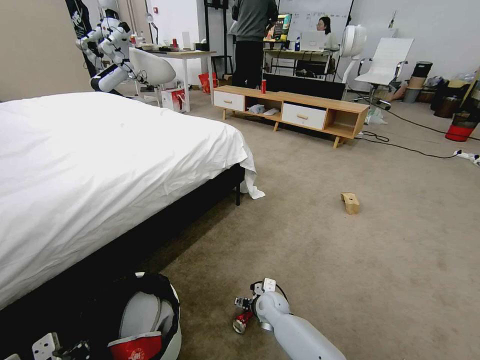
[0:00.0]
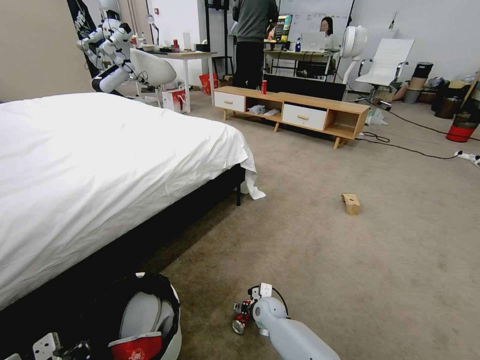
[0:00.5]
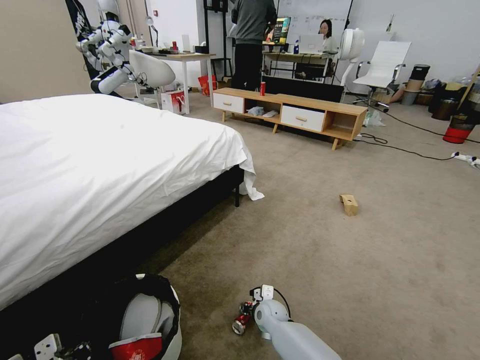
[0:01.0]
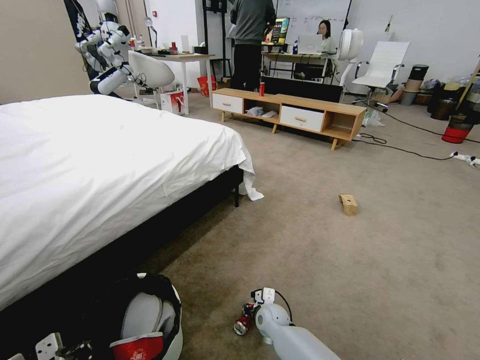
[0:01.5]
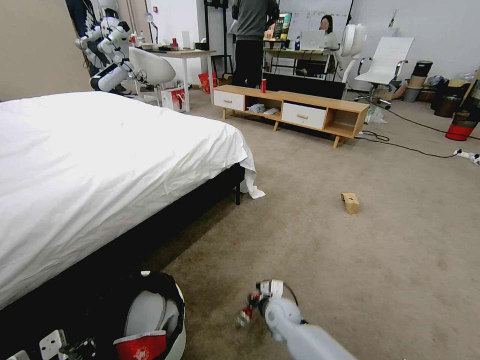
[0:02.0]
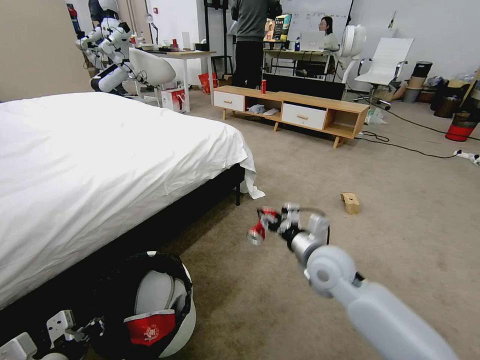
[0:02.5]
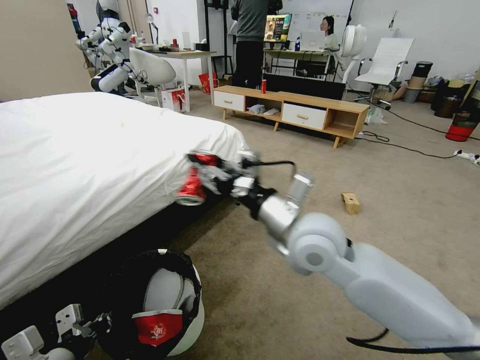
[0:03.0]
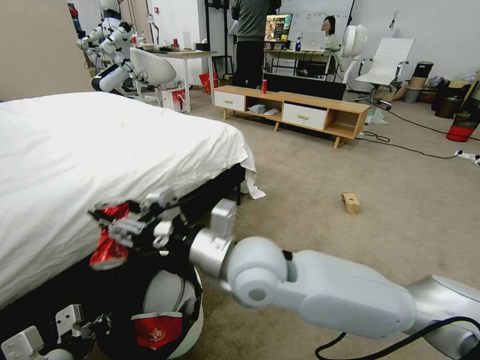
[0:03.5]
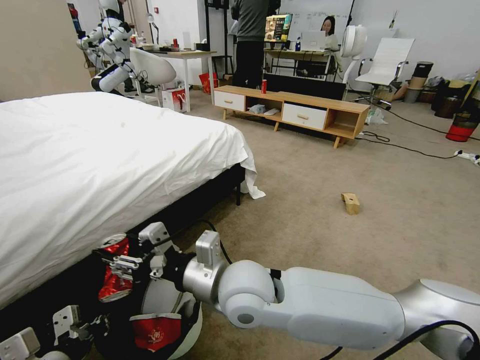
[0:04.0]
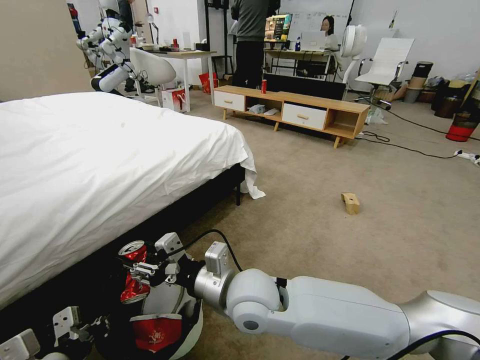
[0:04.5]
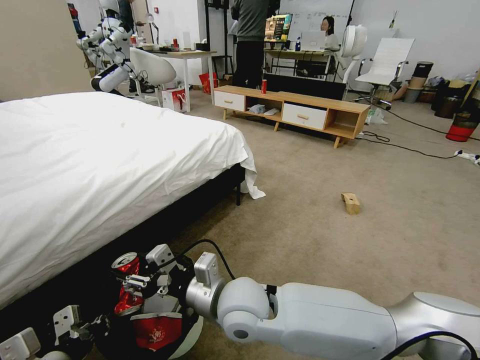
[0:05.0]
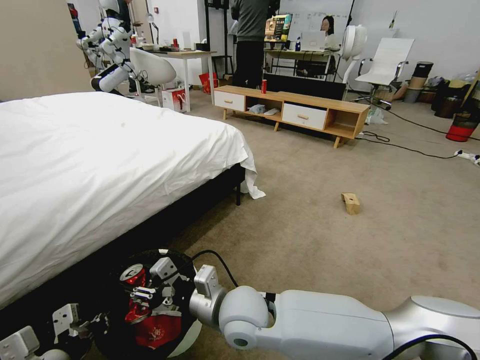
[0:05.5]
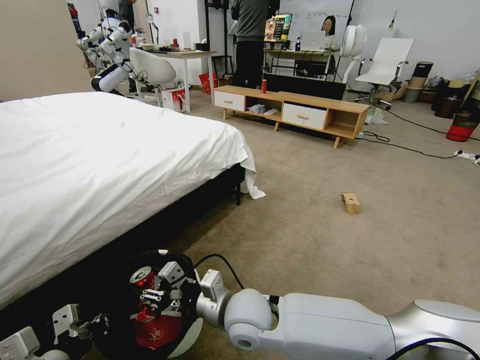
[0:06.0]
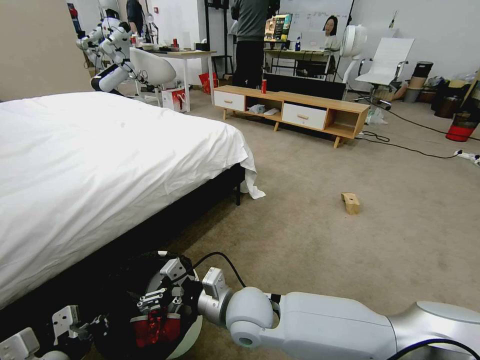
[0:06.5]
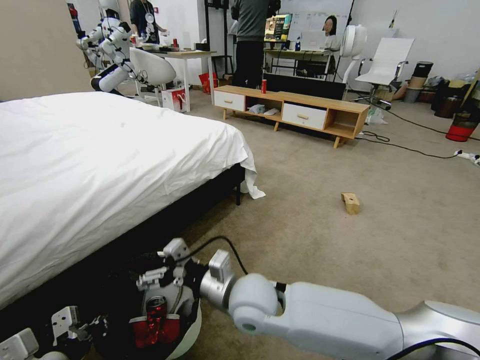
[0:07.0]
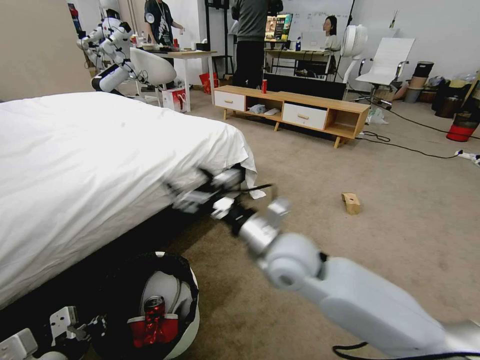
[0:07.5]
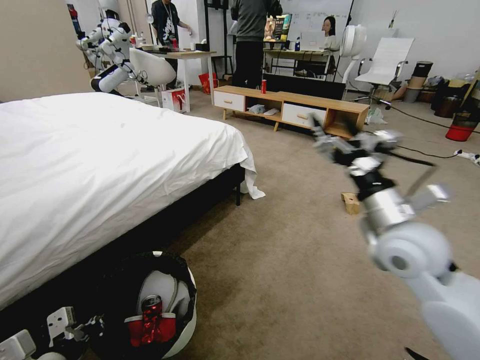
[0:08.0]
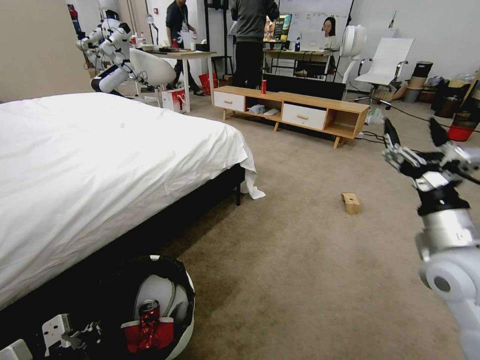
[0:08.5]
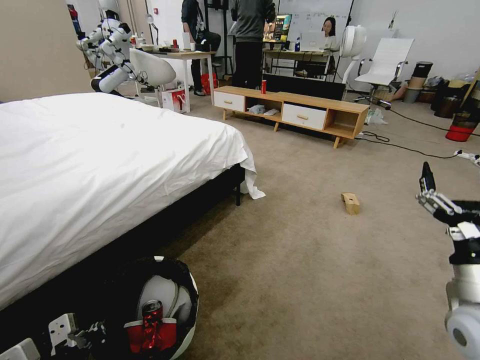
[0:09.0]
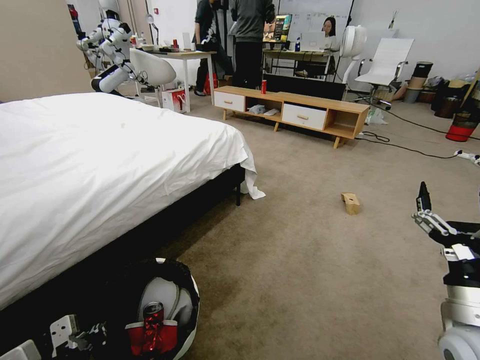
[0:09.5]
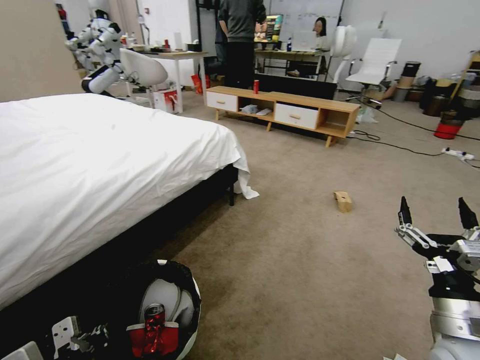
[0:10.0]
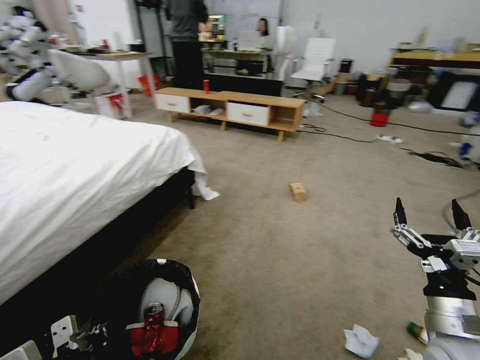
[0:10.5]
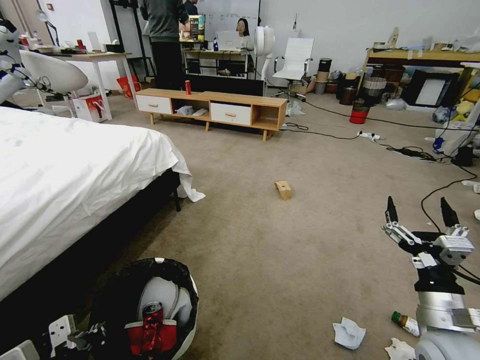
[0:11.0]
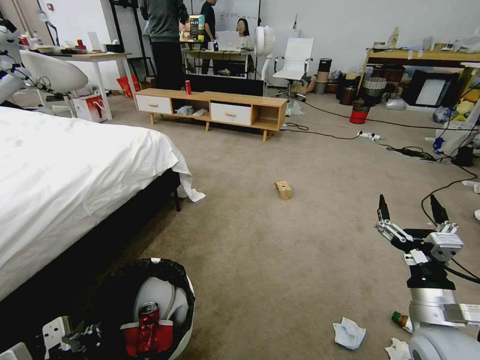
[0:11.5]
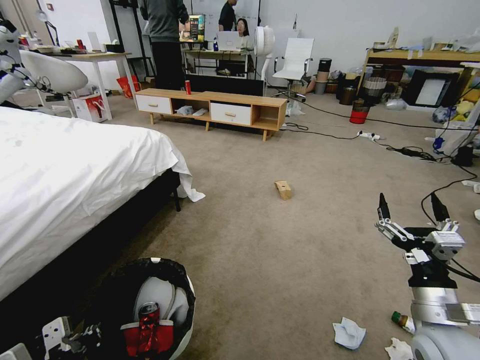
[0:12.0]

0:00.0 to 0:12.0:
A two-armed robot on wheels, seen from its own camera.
Task of the whole recording: Pick up the trash bin and place the garbage on the floor into it.
0:00.0 to 0:02.0: The right gripper closes.
0:02.0 to 0:04.0: The right gripper goes roughly 30 cm upward and to the left.
0:04.0 to 0:06.0: The right gripper moves downward, roughly 10 cm.
0:06.0 to 0:08.0: The right gripper is displaced to the right and upward by about 30 cm, and opens.
0:08.0 to 0:10.0: The right gripper shifts about 20 cm downward, backward and to the right.

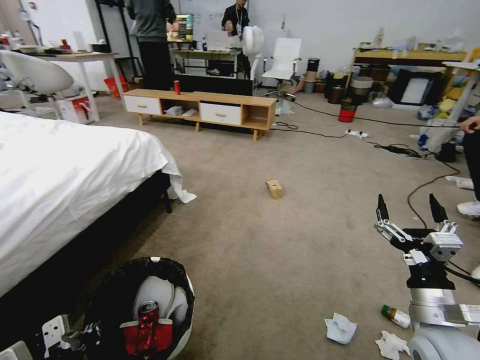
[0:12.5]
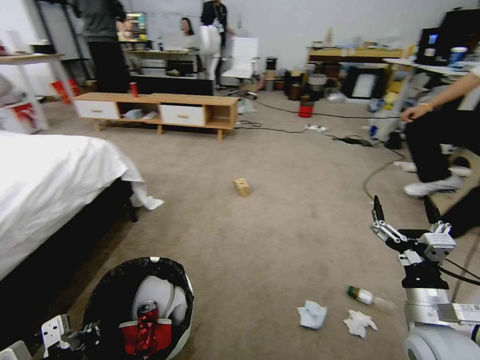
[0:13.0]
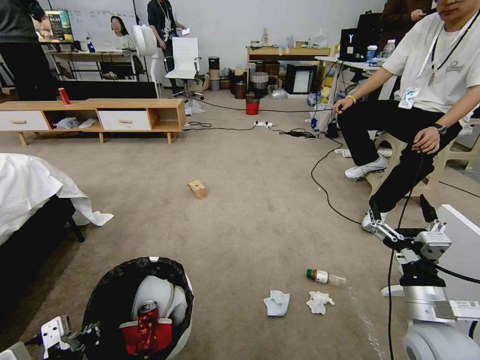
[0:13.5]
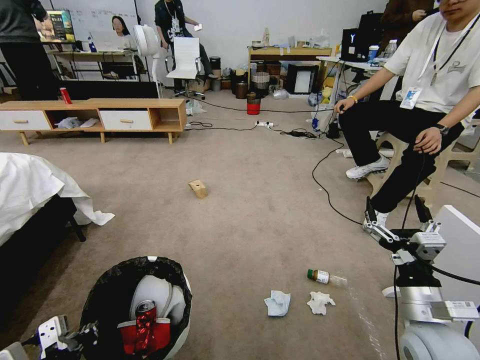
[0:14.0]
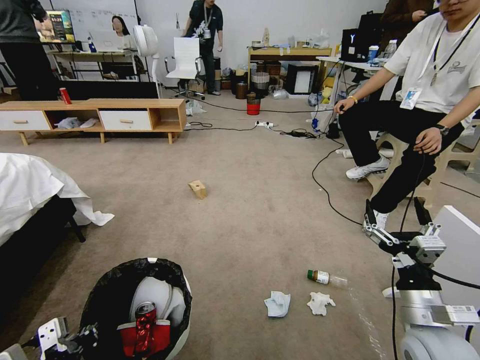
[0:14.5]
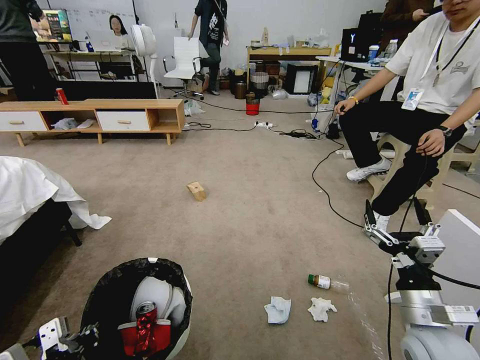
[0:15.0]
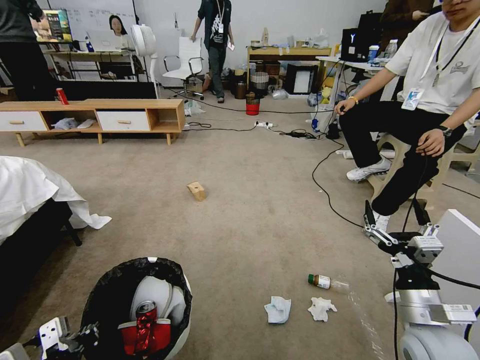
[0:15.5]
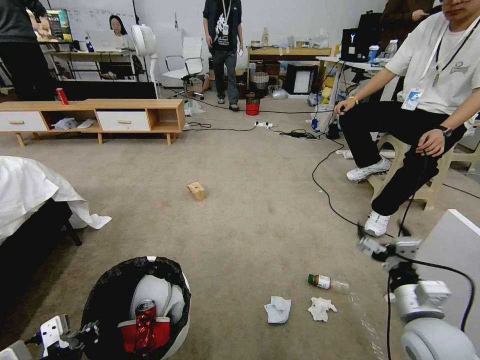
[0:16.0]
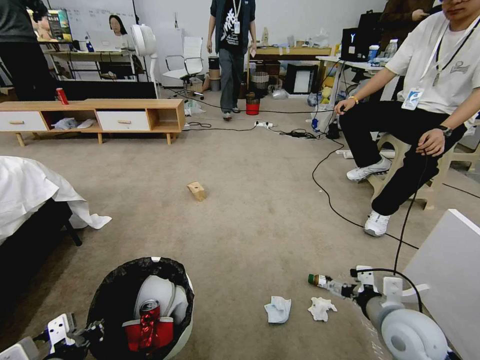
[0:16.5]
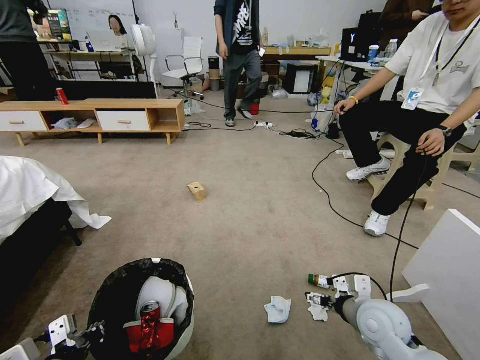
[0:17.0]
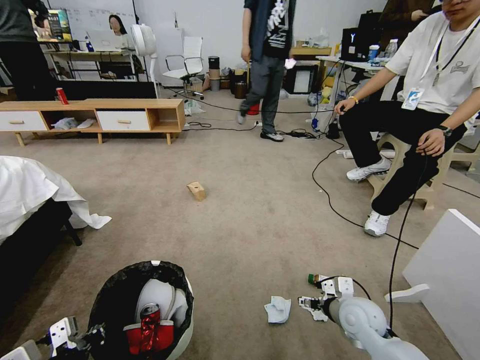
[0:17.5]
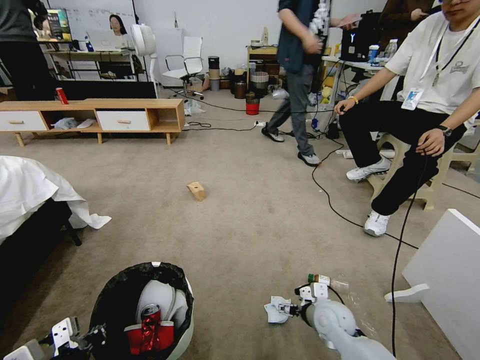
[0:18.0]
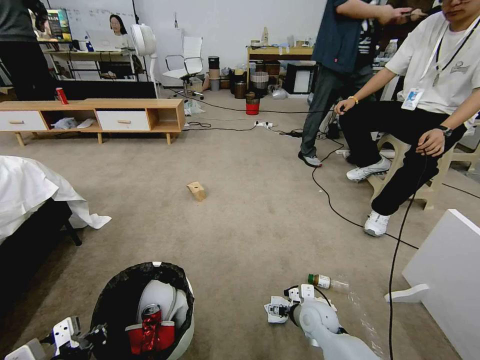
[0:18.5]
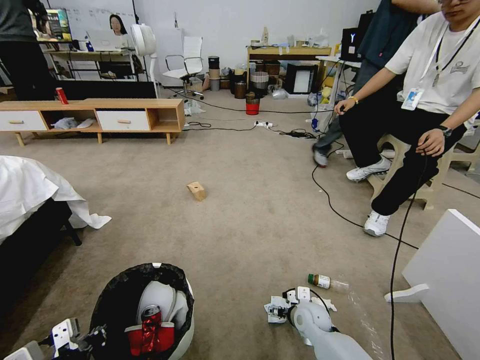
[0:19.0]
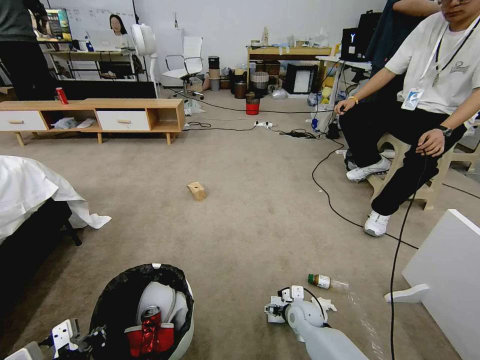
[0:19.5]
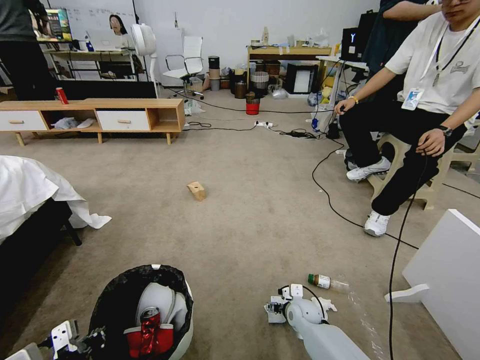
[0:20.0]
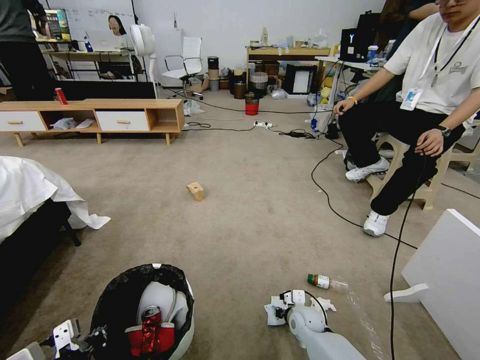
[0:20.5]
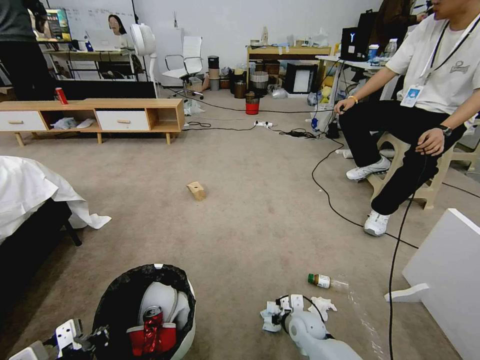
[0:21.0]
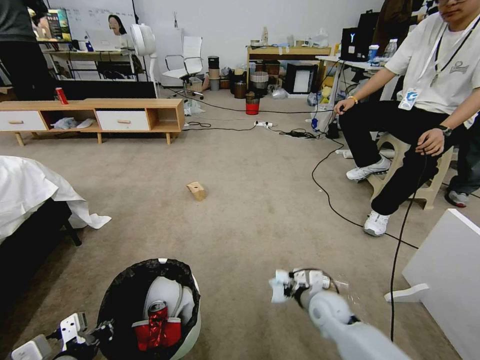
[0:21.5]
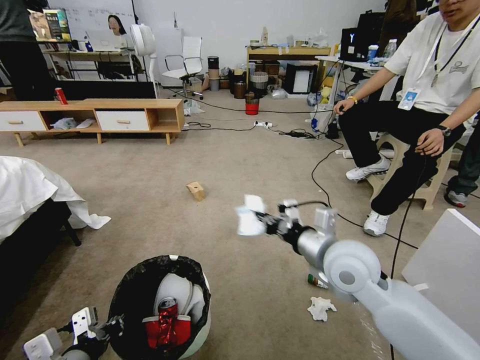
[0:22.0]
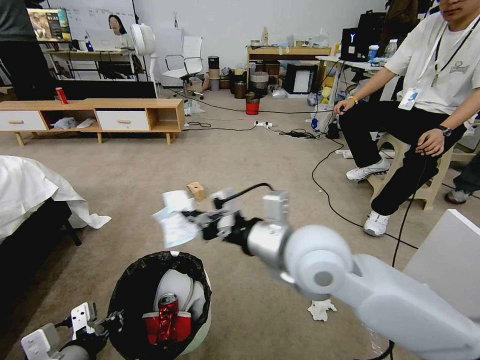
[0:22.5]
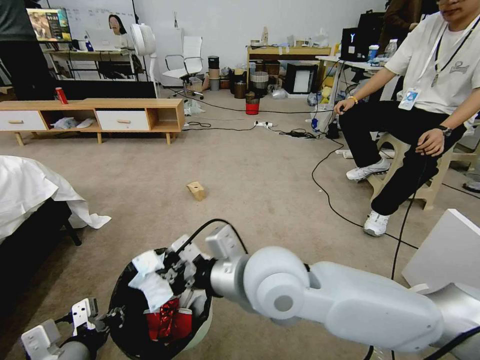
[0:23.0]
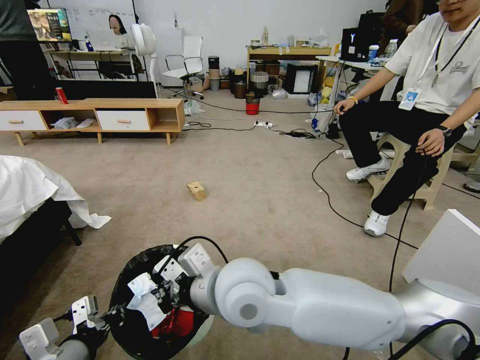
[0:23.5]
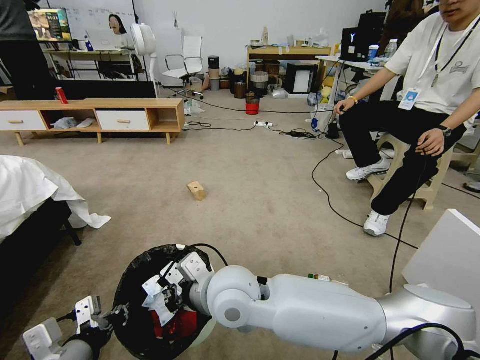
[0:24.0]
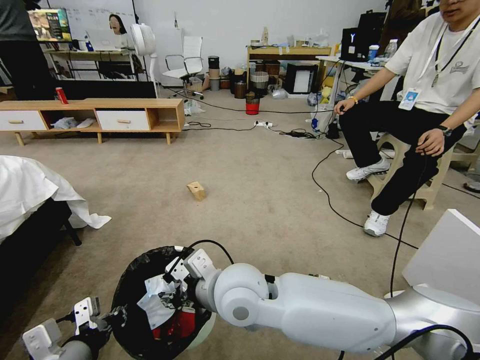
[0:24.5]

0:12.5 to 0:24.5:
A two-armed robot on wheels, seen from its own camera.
Task of the whole recording: Pick up the trash bin and place the garbage on the floor into it.
0:16.5 to 0:18.5: The right gripper shifts about 20 cm downward, to the left and forward.
0:18.5 to 0:20.5: The right gripper is displaced downward by approximately 5 cm, and closes its fingers.
0:20.5 to 0:22.5: The right gripper goes roughly 40 cm upward.
0:22.5 to 0:24.5: The right gripper shifts roughly 15 cm to the left and downward, and opens.

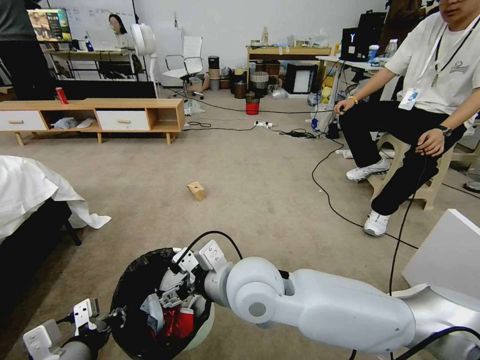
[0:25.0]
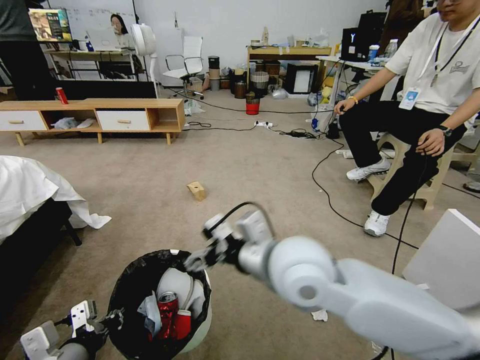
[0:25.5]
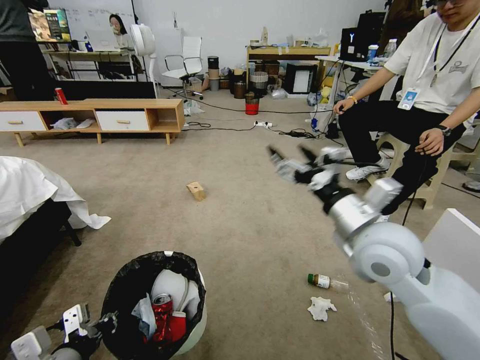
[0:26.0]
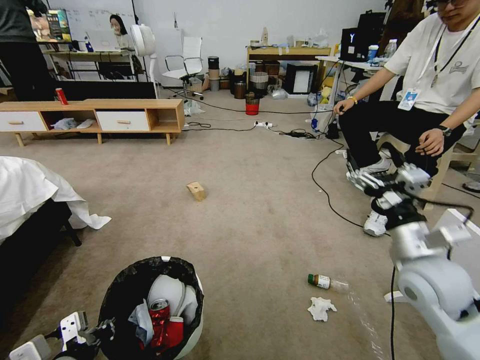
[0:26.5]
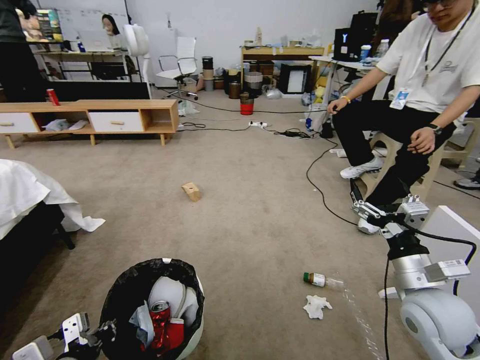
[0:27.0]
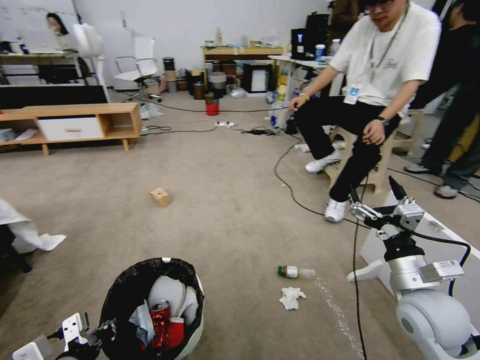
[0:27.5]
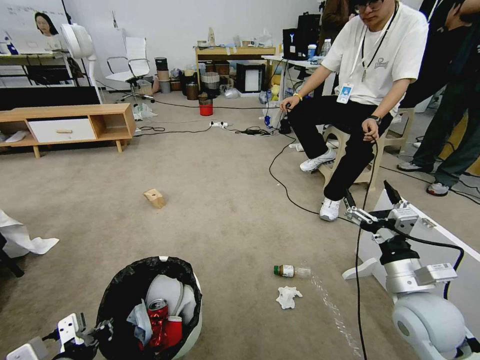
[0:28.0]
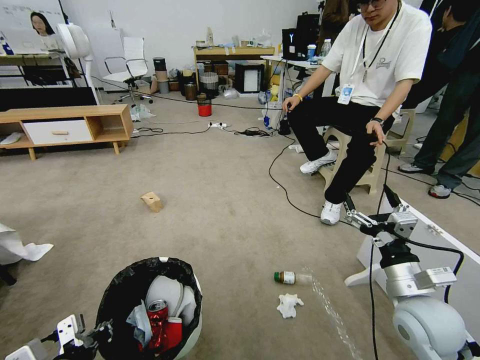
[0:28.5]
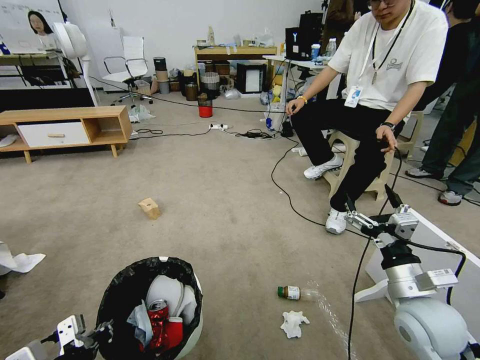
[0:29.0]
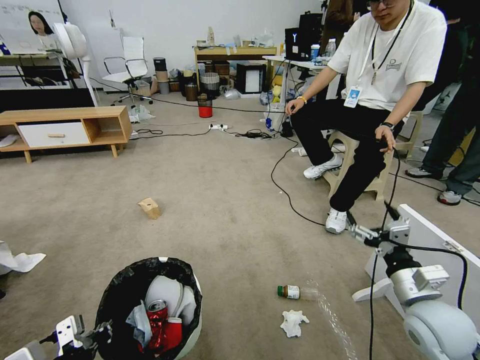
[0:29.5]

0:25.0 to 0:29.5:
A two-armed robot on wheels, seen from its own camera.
Task of the whole recording: Pick up the trash bin and place the garbage on the floor into it.
0:25.0 to 0:27.0: The right gripper shifts approximately 30 cm to the right.
